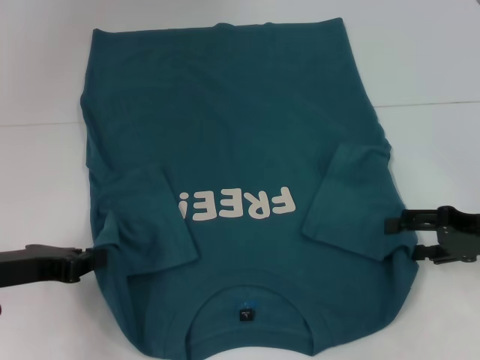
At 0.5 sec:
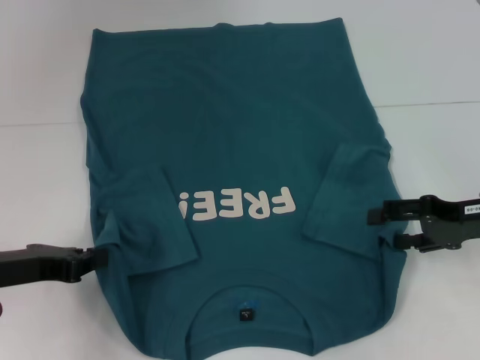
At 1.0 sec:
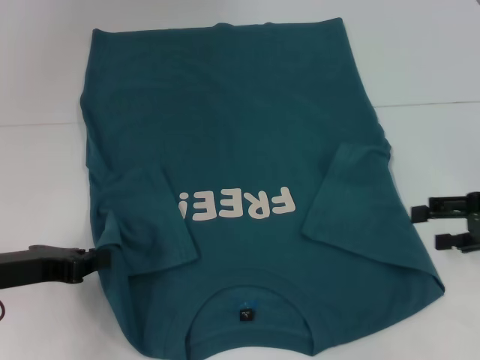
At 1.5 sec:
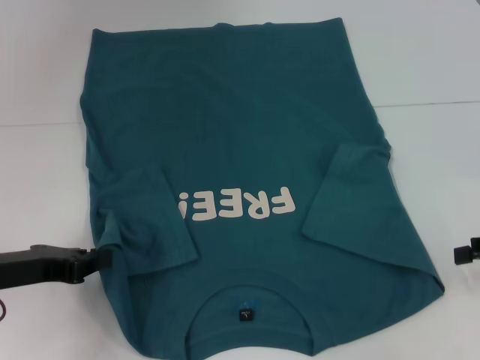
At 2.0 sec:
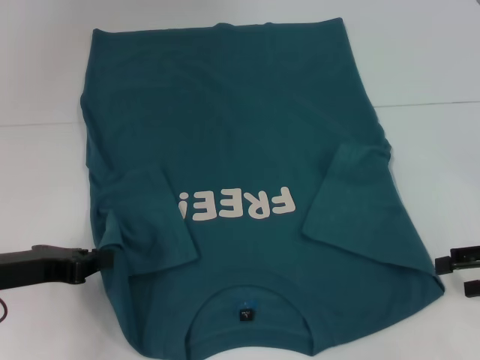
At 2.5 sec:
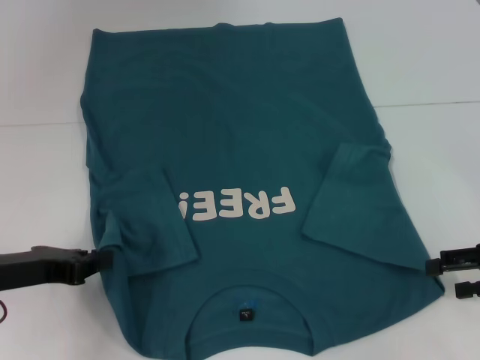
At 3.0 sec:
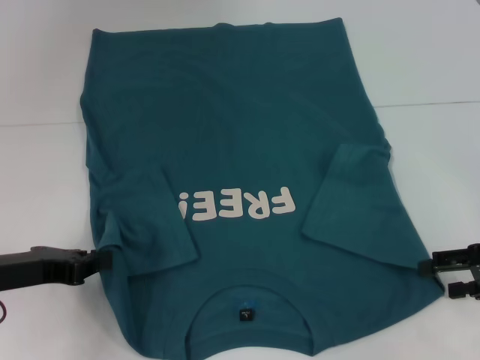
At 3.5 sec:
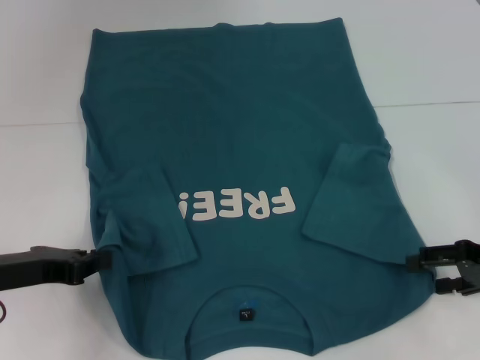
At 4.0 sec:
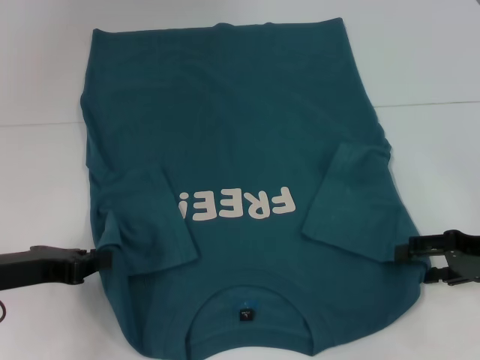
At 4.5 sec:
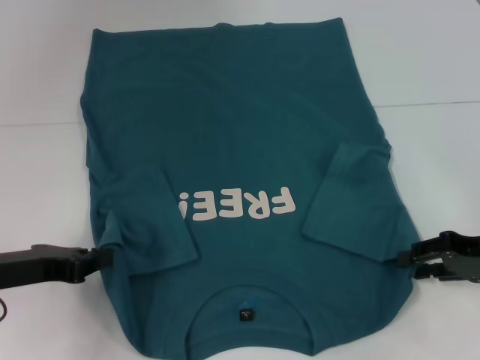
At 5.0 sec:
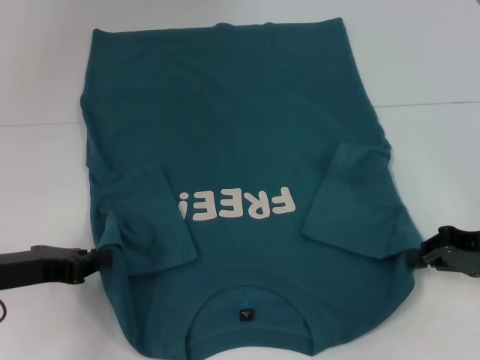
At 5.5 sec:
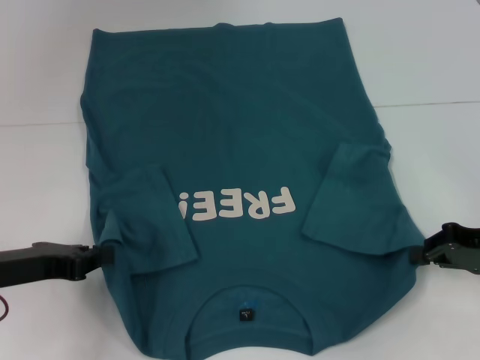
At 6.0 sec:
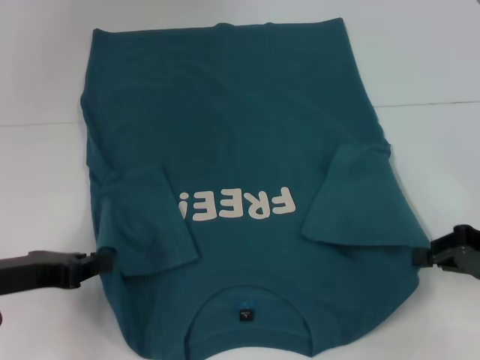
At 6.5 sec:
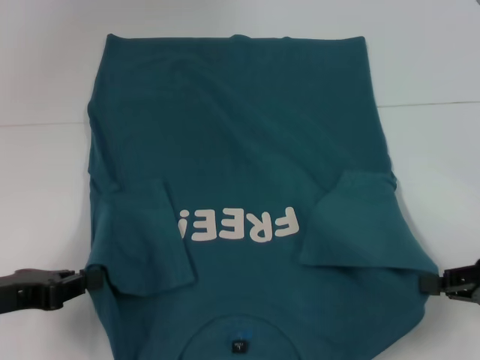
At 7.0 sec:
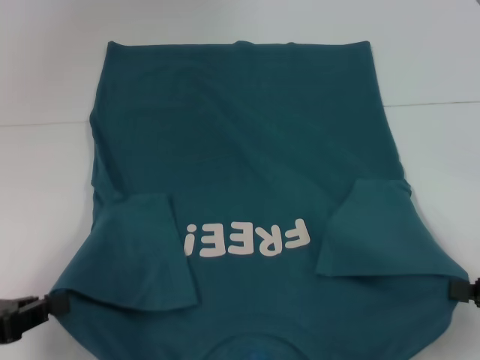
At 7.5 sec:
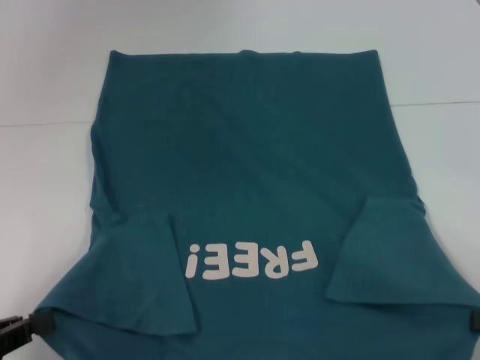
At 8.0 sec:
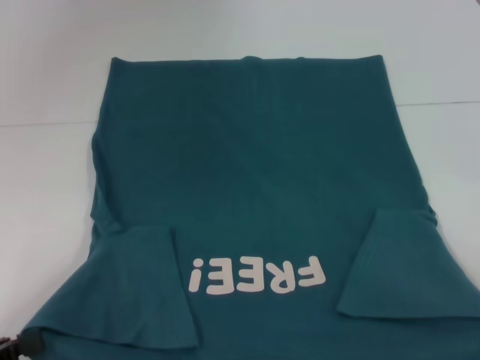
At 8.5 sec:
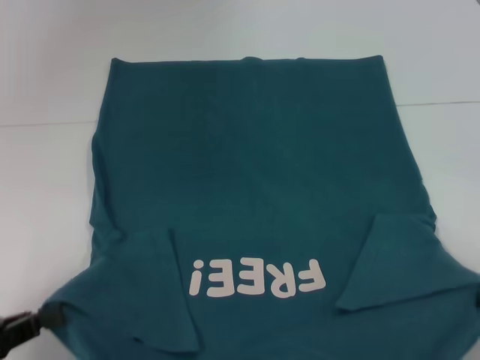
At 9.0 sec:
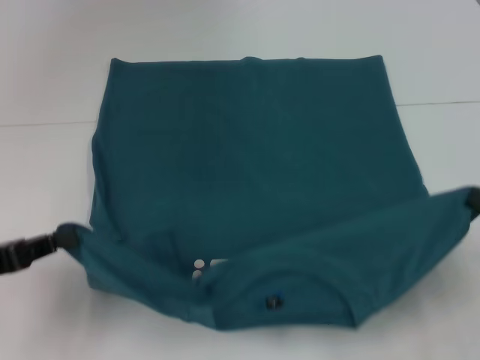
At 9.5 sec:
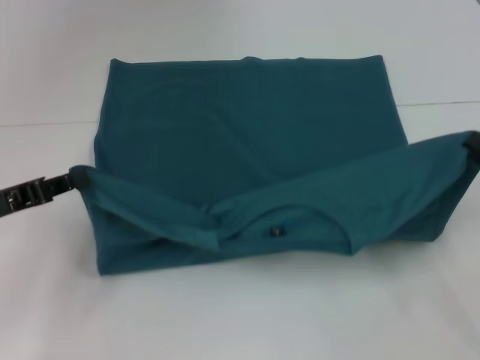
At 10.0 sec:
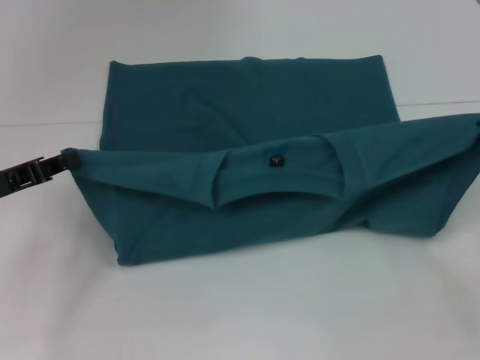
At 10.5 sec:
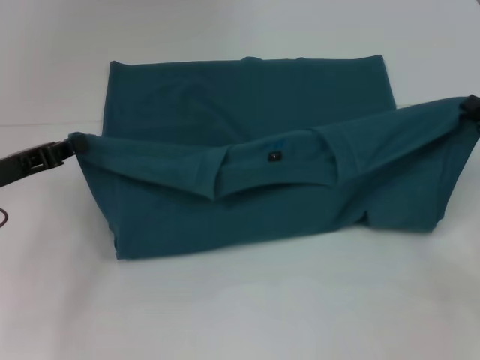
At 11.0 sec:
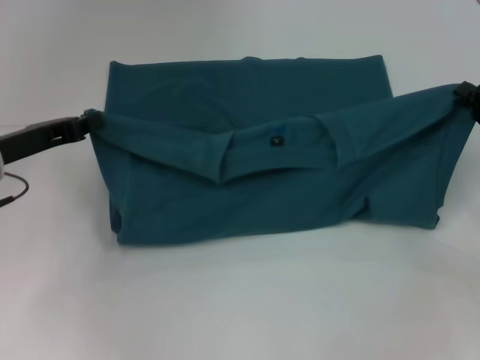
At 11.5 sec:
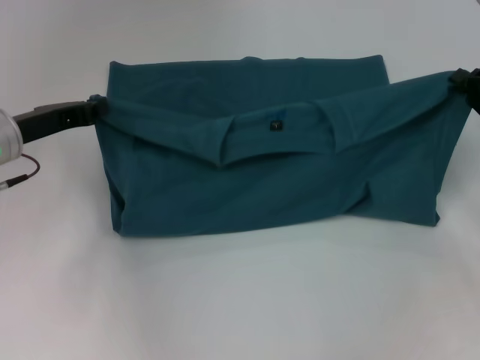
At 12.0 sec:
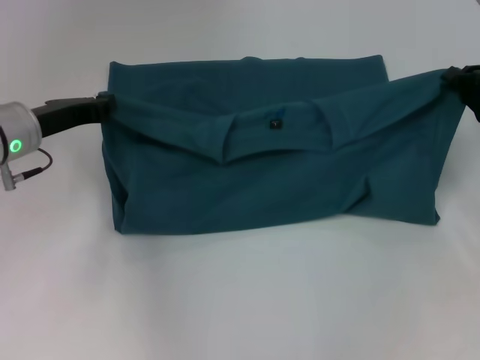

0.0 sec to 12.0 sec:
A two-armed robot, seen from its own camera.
Step, 0.0 sec to 5.0 sec: Grab the bottom right corner with your right hand.
2.0 sec to 4.0 sec: The grippers make only small movements.
4.0 sec to 6.0 sec: The right gripper closes up.
6.0 sec to 8.0 sec: The left gripper goes about 15 cm backward and to the left. The right gripper moves backward, about 15 cm.
8.0 sec to 10.0 sec: The two grippers go approximately 15 cm forward.
10.0 sec to 12.0 sec: The right gripper moves forward, about 10 cm, while the left gripper heads forward and to the right, covering approximately 10 cm.

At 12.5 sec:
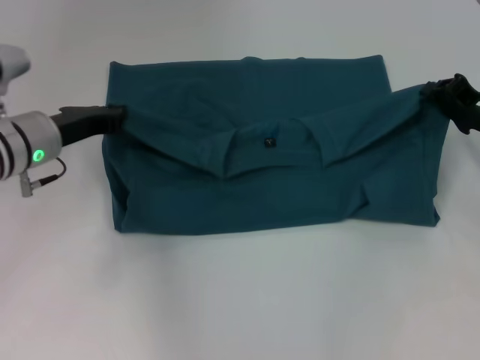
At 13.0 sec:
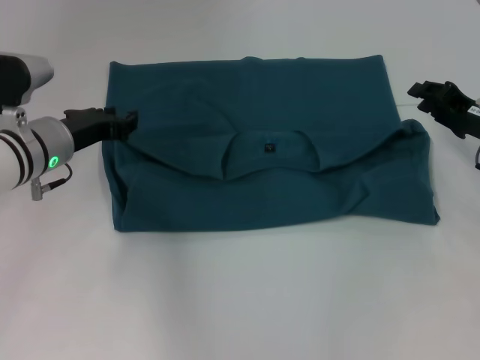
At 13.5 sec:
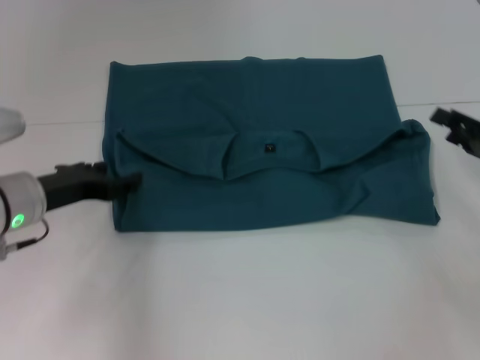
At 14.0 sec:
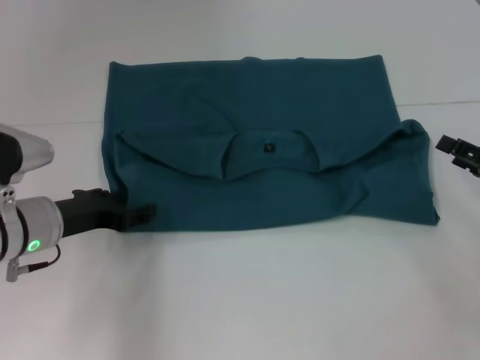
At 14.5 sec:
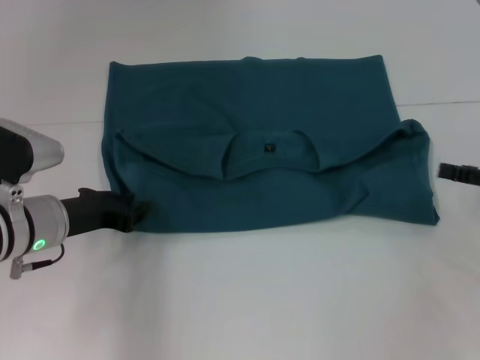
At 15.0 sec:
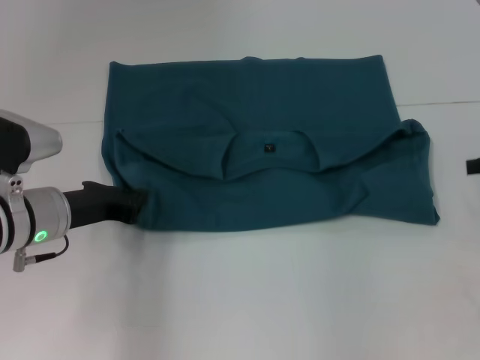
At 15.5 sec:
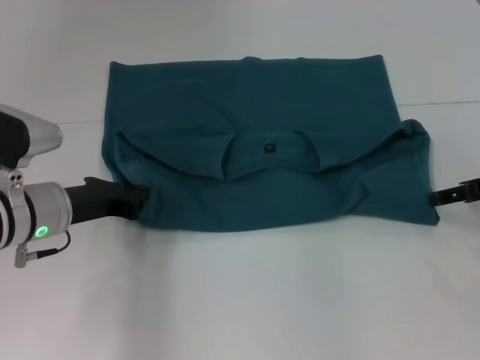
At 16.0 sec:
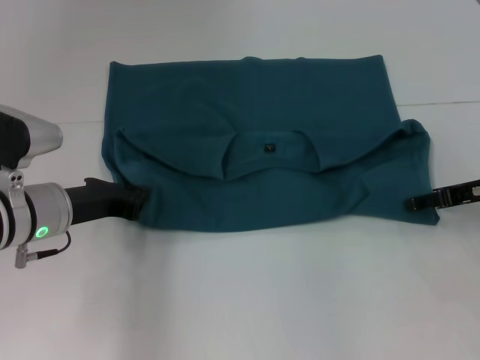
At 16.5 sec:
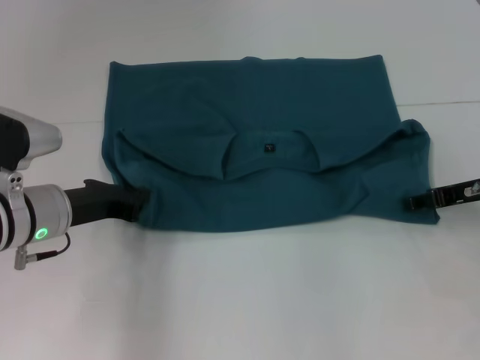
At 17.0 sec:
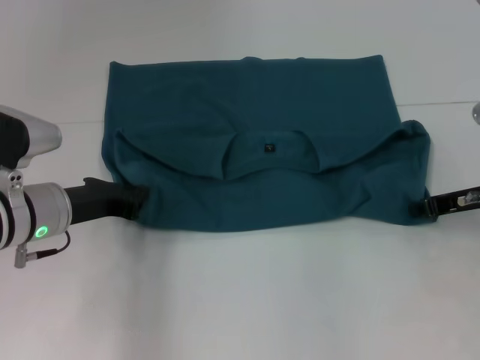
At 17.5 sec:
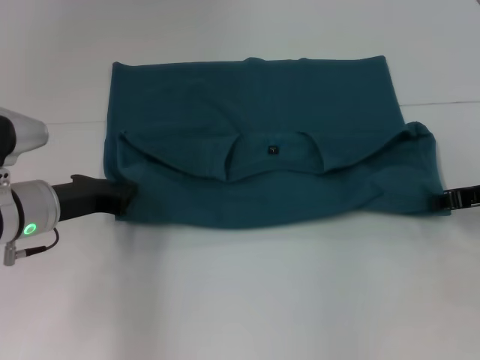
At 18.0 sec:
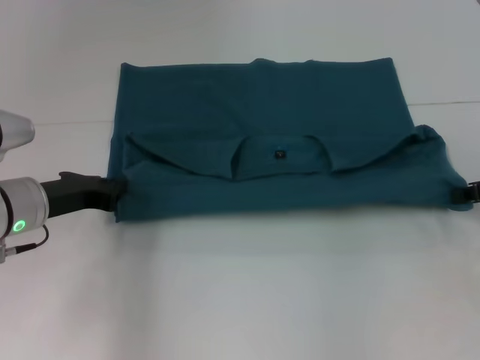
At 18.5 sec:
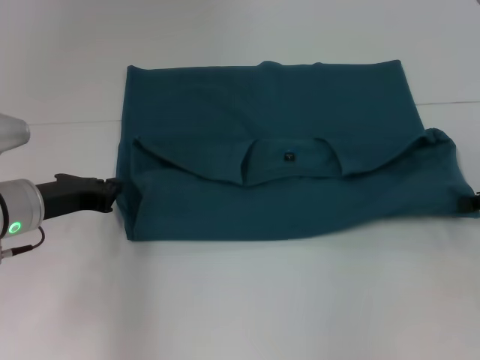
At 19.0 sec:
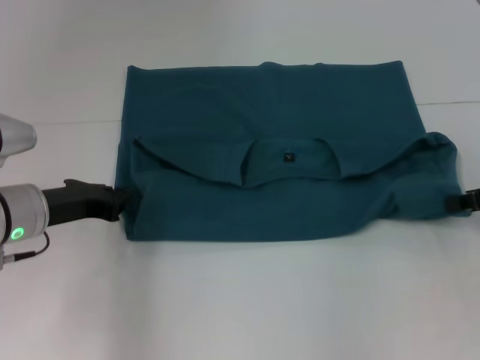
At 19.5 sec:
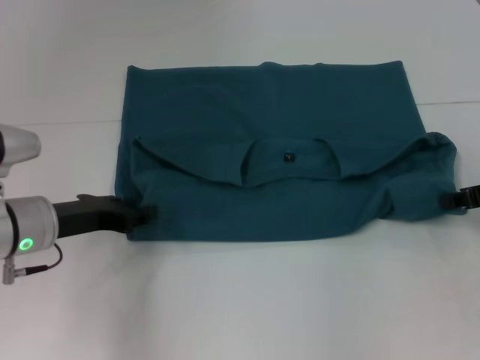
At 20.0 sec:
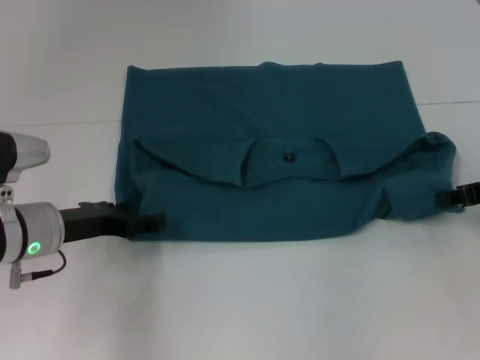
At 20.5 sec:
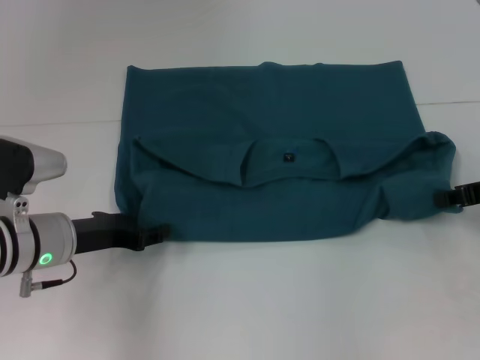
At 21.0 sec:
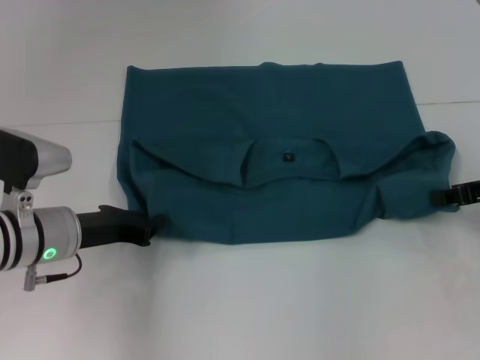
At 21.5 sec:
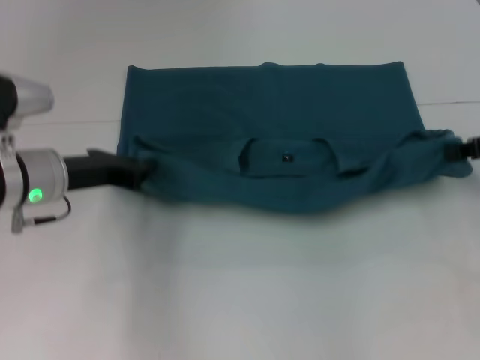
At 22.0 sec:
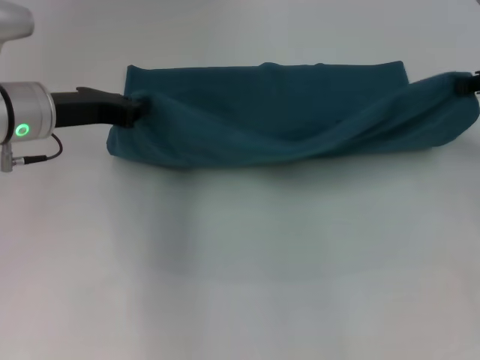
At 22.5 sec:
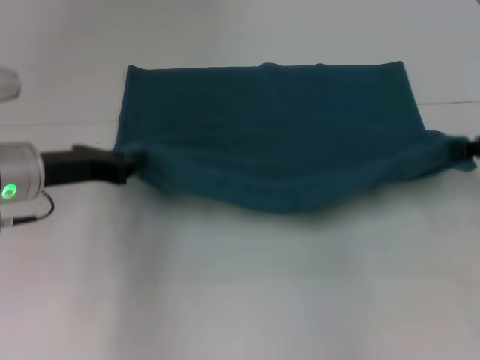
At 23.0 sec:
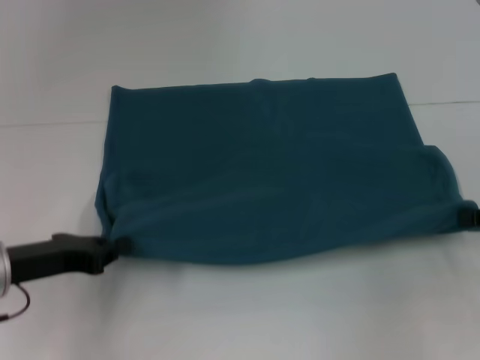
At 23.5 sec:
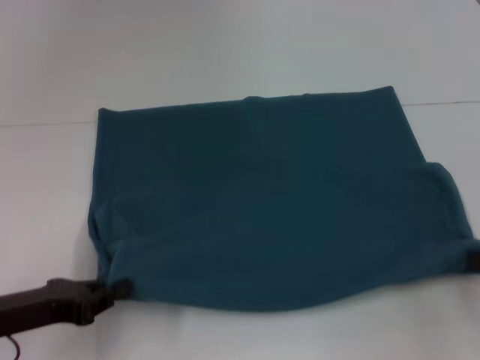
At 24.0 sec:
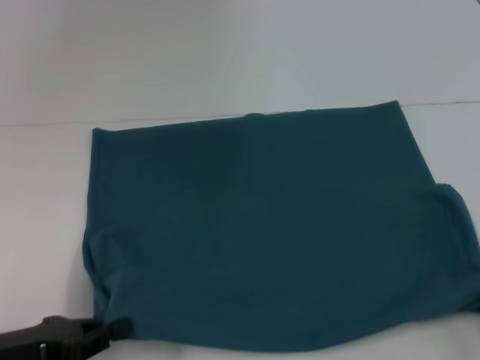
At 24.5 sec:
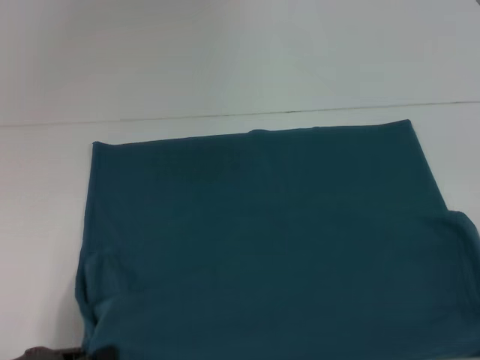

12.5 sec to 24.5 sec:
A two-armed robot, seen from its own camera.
12.5 sec to 14.5 sec: The left gripper moves backward, about 5 cm, and opens up. Meanwhile the right gripper travels backward and to the right by approximately 10 cm, and opens its fingers.
14.5 sec to 16.5 sec: The left gripper closes up, while the right gripper shifts approximately 10 cm forward and to the left.
16.5 sec to 18.5 sec: The right gripper travels to the right by approximately 5 cm, and closes up.
18.5 sec to 20.5 sec: The left gripper opens its fingers.
20.5 sec to 22.5 sec: The left gripper is displaced upward by roughly 5 cm, and closes.
22.5 sec to 24.5 sec: The left gripper travels backward by roughly 20 cm. The right gripper moves backward and downward, approximately 20 cm.

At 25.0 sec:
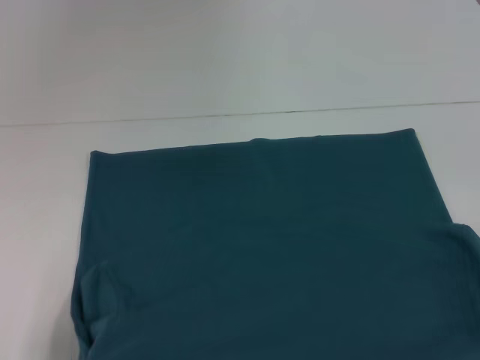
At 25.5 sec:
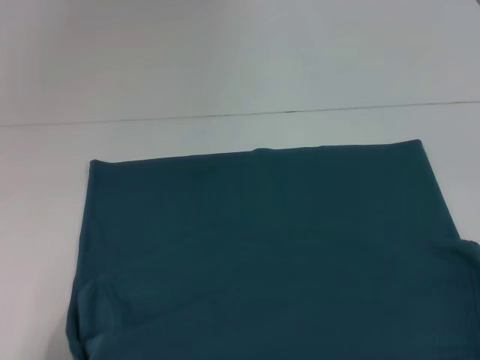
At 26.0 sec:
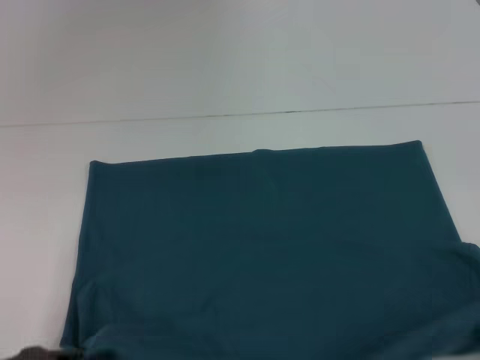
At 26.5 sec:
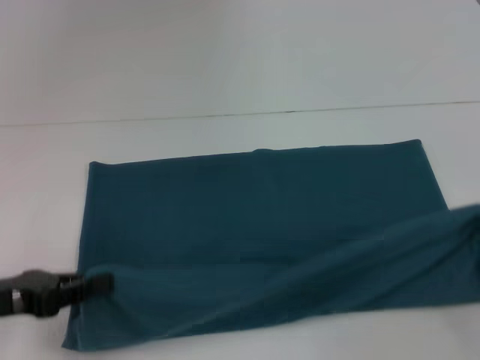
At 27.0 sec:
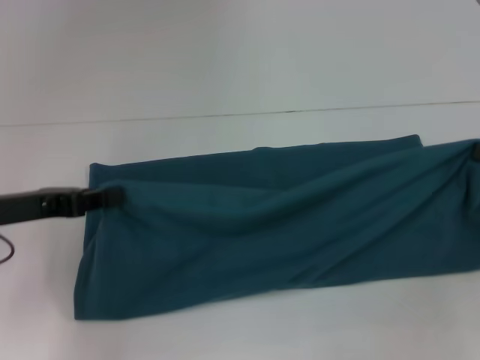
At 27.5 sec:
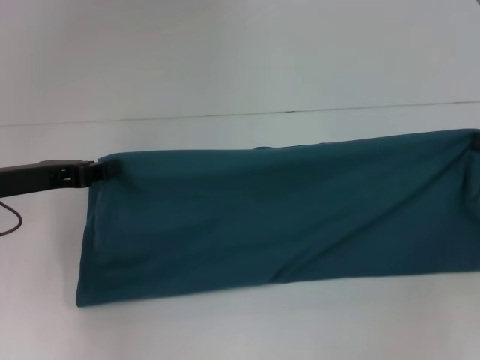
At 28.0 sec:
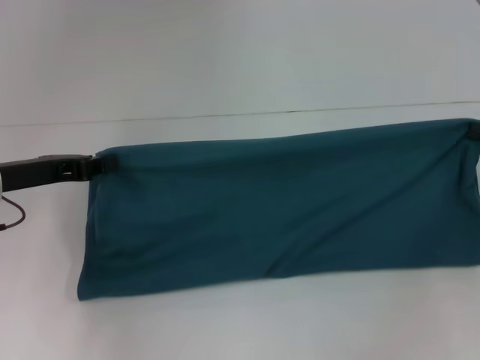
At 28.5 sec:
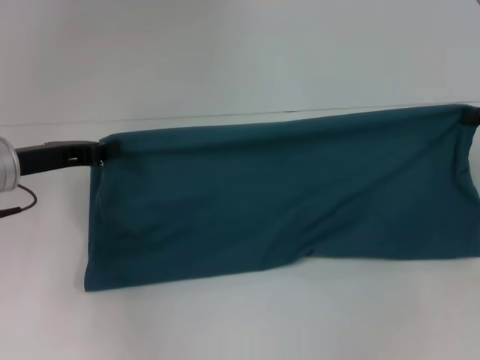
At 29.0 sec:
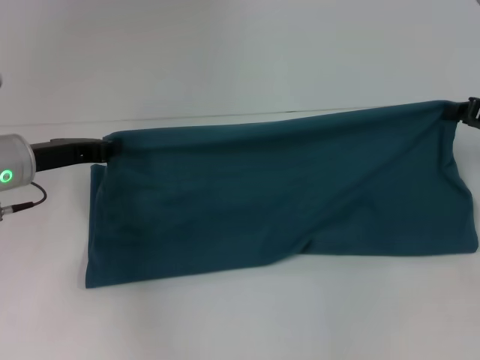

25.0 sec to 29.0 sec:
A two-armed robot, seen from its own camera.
25.0 sec to 27.0 sec: Both grippers move forward and upward, approximately 15 cm.
27.0 sec to 29.0 sec: The grippers both shift forward by some 10 cm.
